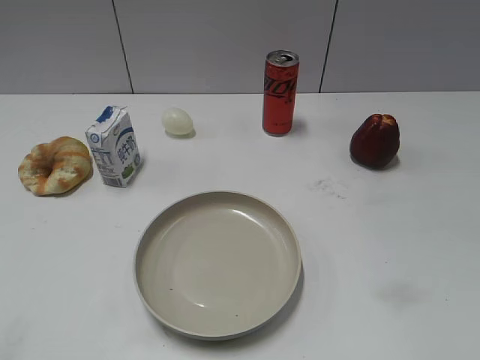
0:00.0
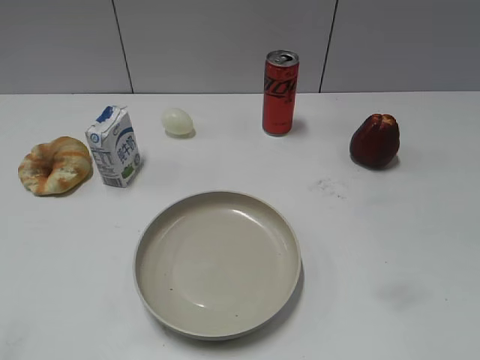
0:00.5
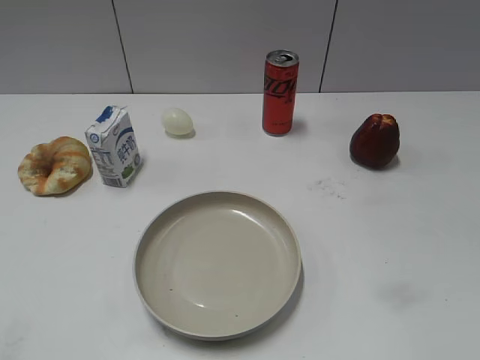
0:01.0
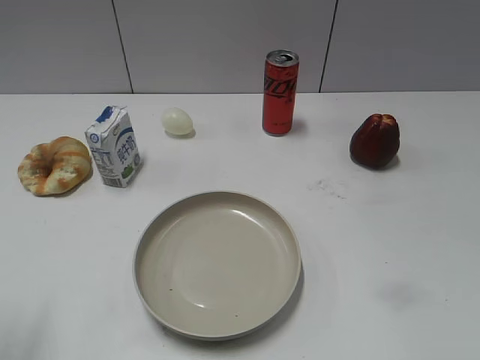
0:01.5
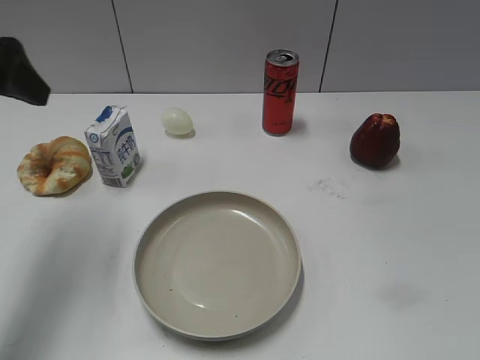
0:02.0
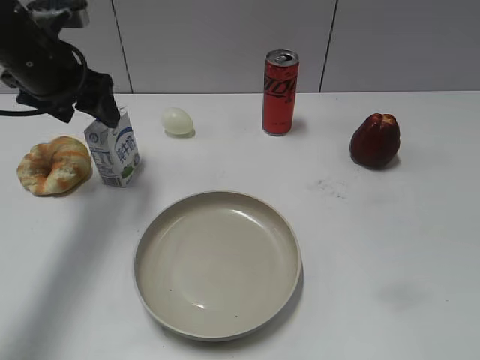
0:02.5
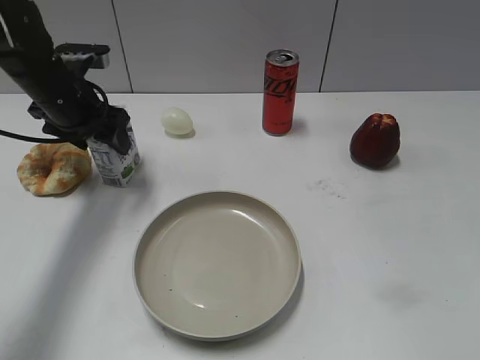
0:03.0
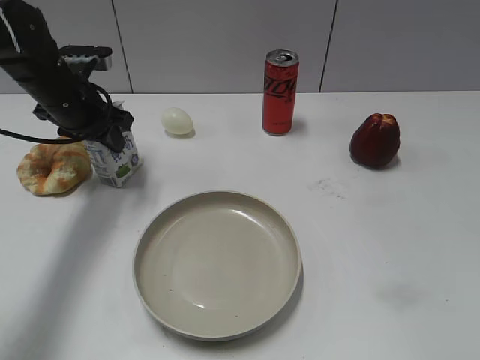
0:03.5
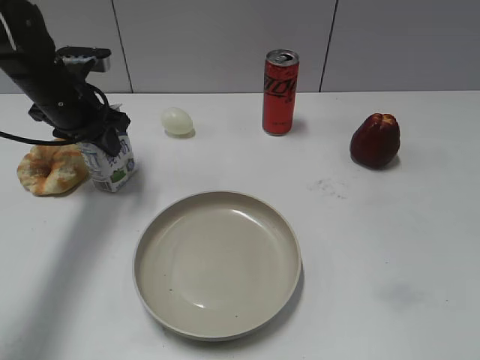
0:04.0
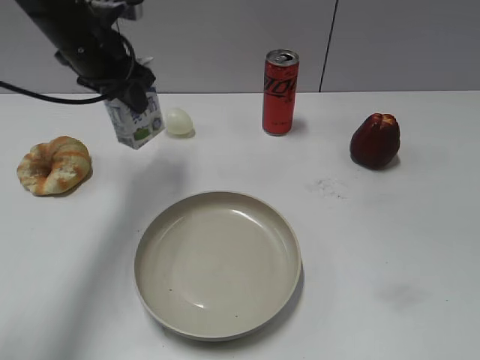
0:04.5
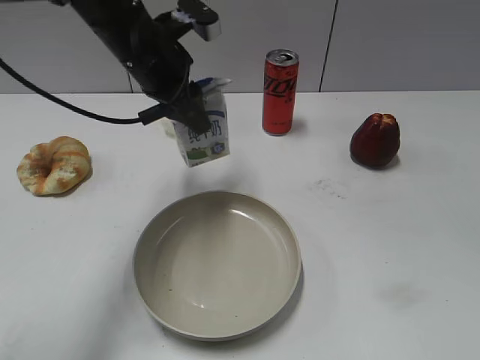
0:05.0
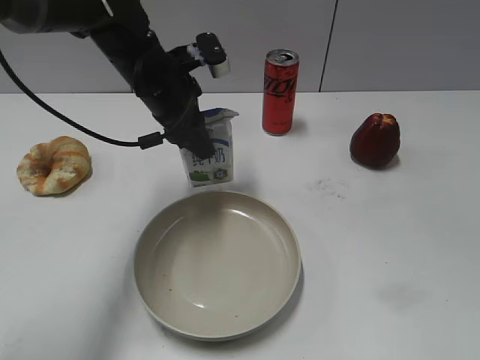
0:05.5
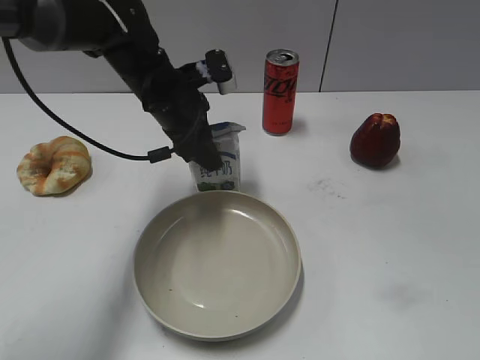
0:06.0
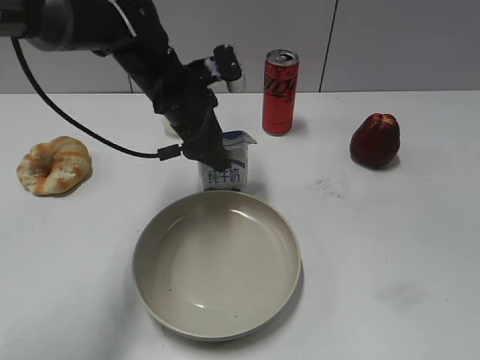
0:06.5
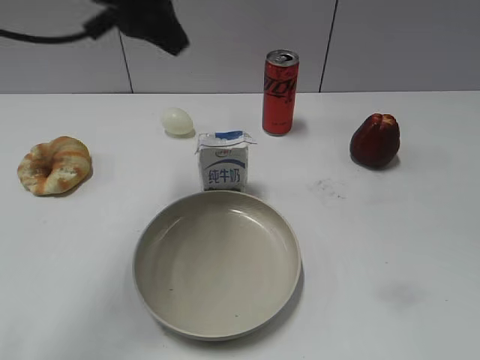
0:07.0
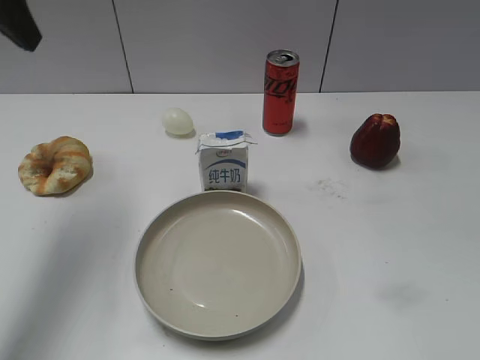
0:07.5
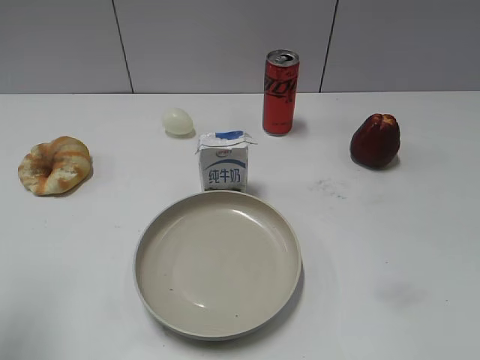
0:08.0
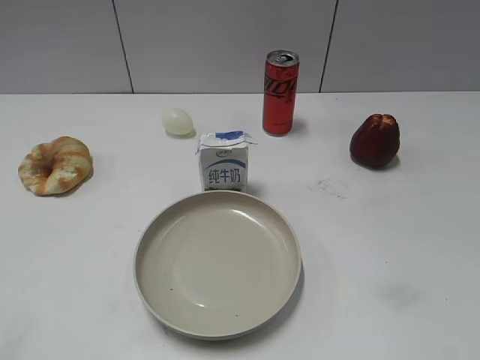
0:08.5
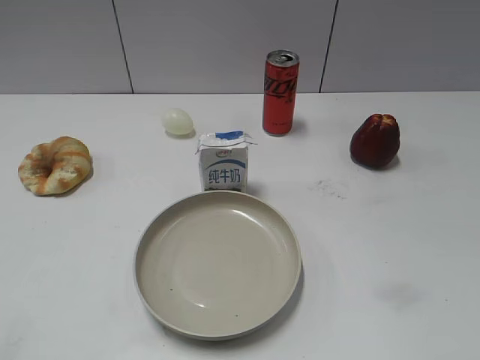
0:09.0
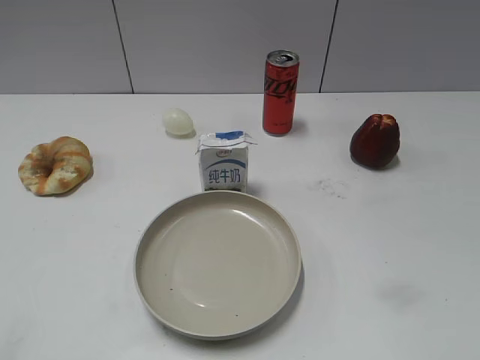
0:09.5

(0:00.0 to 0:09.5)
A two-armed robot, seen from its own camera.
Step, 0:01.0 - 0:03.5: Grasp the milk with left gripper.
Step, 0:04.0 - 0:06.5: Place the milk on the table with left gripper.
0:02.0 - 0:04.0: The left gripper moves downward and forward, approximately 20 cm, and closes.
0:04.0 - 0:05.5: The left gripper goes some 10 cm to the right.
0:05.5 - 0:07.5: The left gripper goes roughly 25 cm upward and to the left, and opens up.
0:07.5 - 0:09.5: The left gripper moves backward, roughly 30 cm.

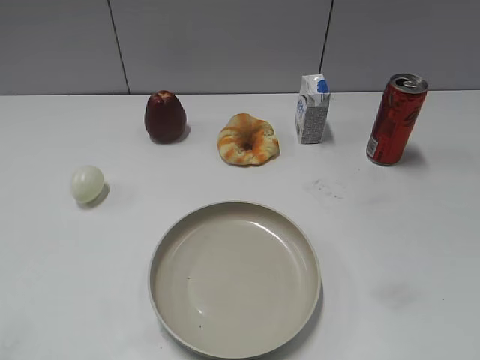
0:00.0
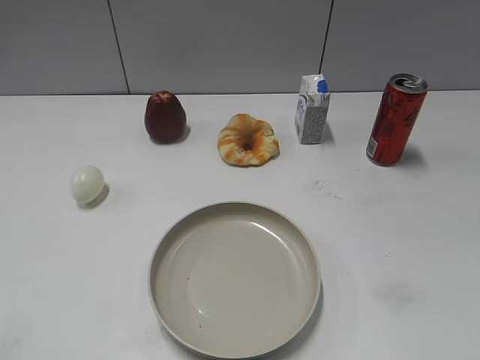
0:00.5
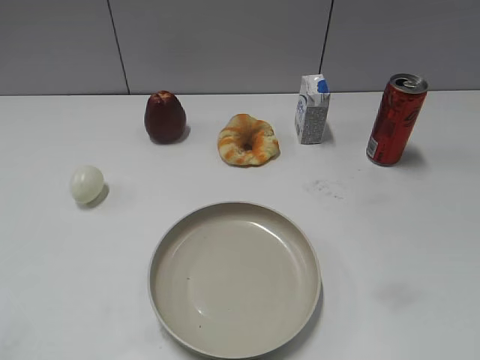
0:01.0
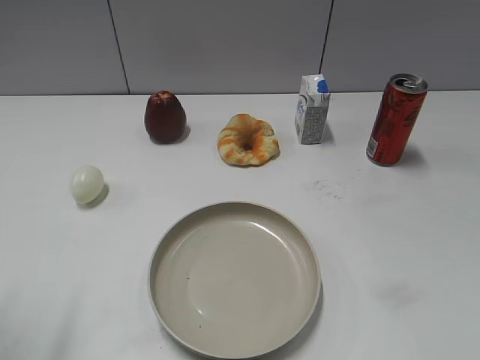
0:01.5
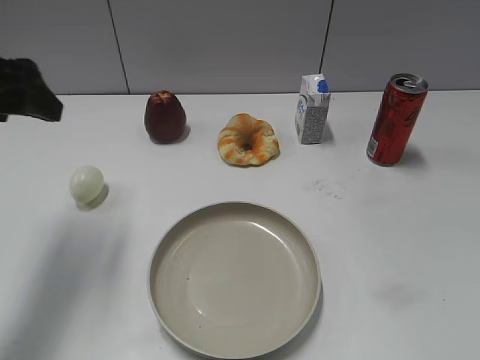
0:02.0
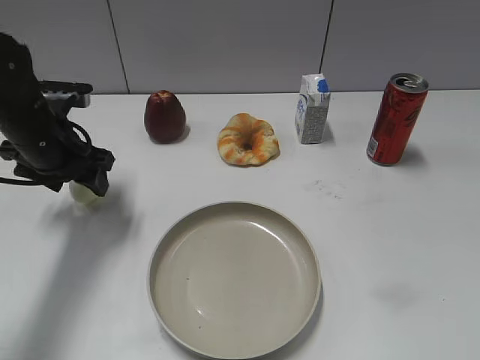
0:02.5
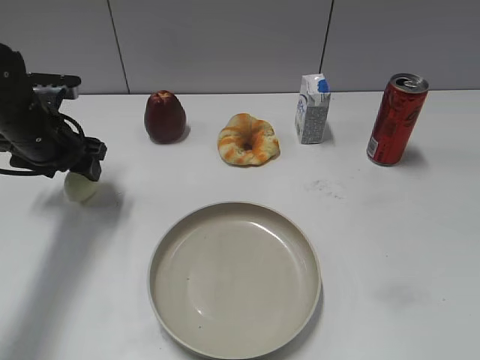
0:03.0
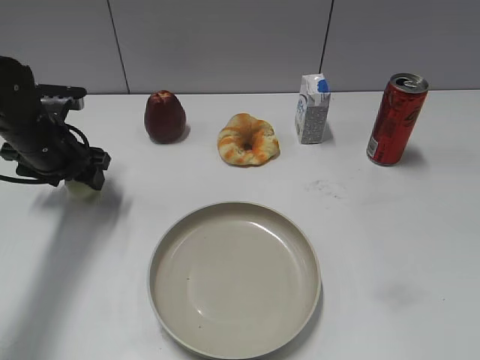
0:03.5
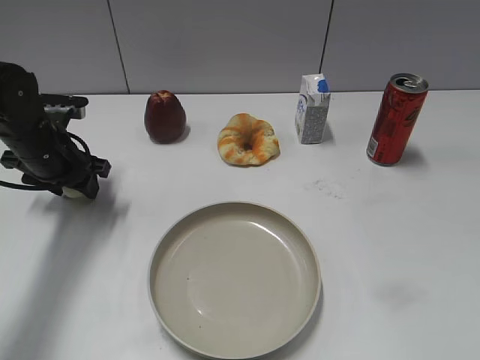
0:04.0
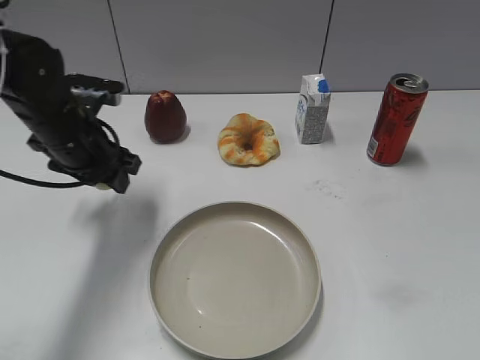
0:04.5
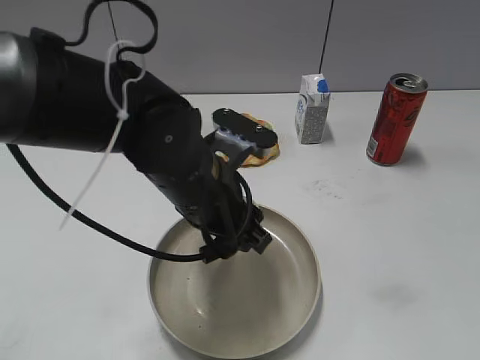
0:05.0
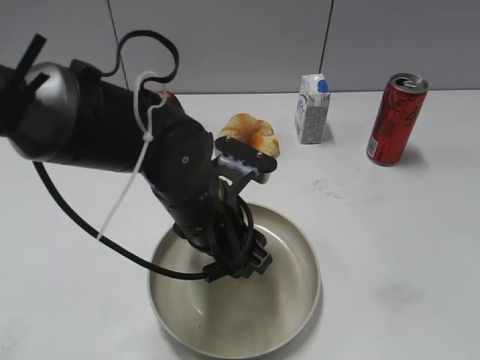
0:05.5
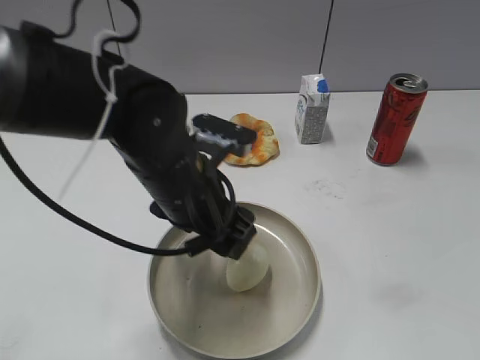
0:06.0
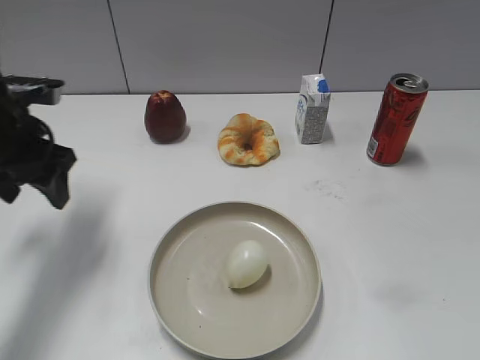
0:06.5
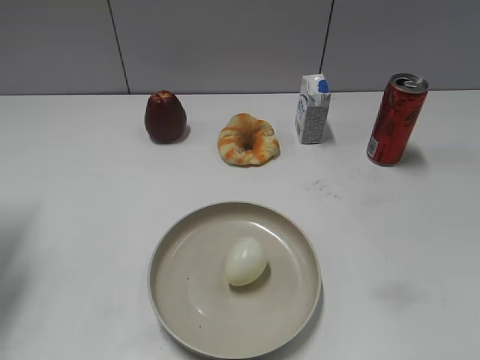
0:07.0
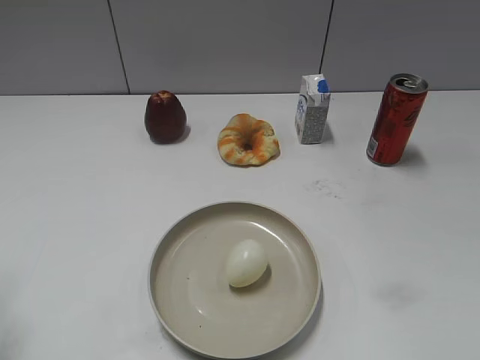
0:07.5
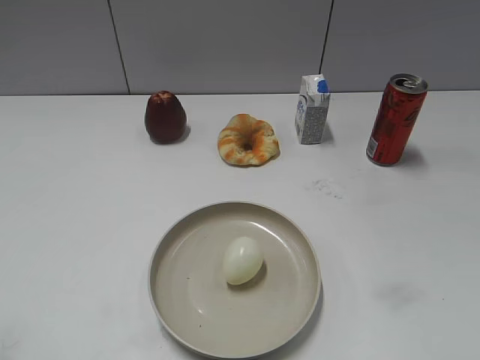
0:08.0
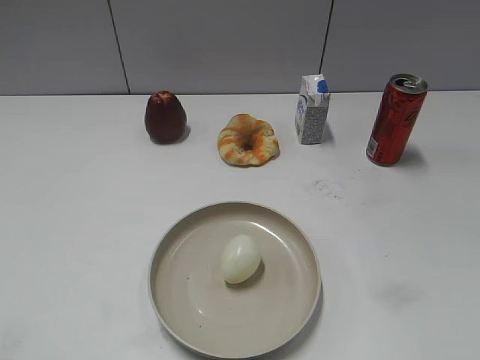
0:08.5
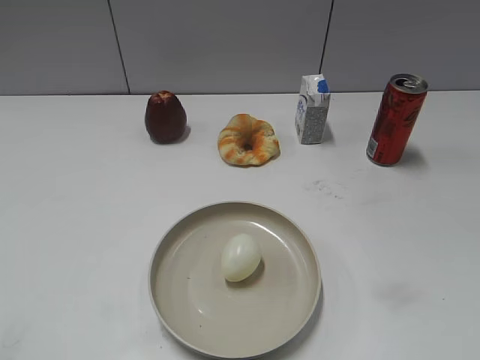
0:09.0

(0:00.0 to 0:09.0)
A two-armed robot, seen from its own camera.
Step, 0:01.0 - 0:04.0: Grasp the egg with left gripper.
Step, 0:04.5 - 0:05.5: Place the egg on the plate with left gripper.
0:02.0 - 0:04.5: The left gripper moves downward, to the right and forward, about 15 cm, and closes up.
0:04.5 - 0:07.0: The left gripper is displaced to the left by some 15 cm, and opens its fingers.
0:07.0 - 0:09.0: The left gripper is displaced backward by approximately 30 cm.
